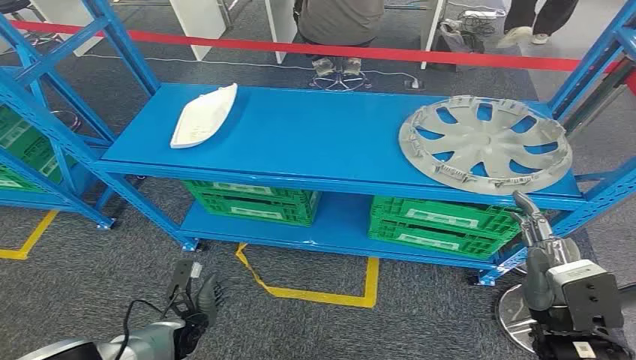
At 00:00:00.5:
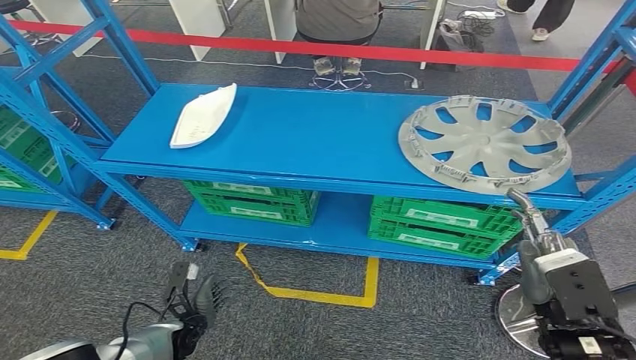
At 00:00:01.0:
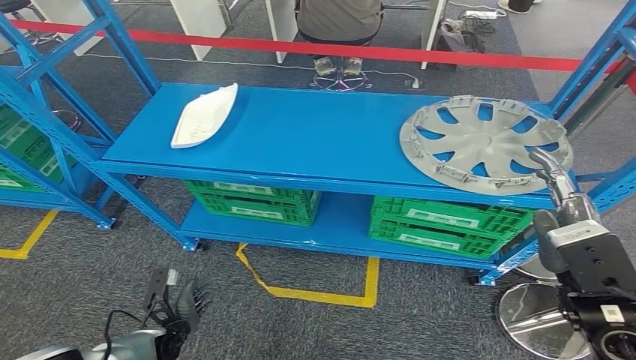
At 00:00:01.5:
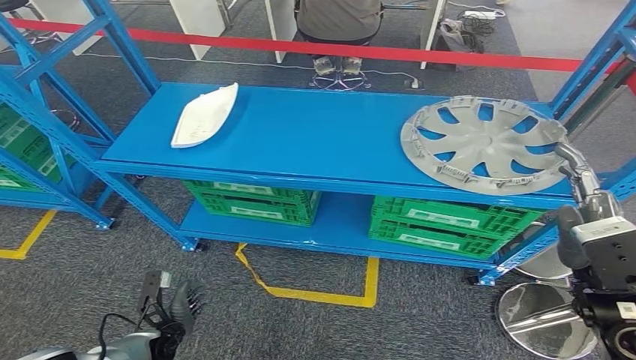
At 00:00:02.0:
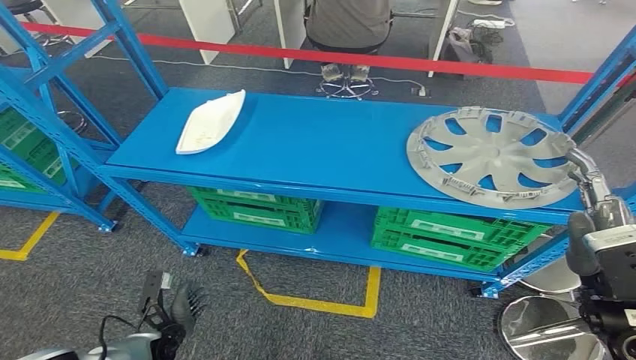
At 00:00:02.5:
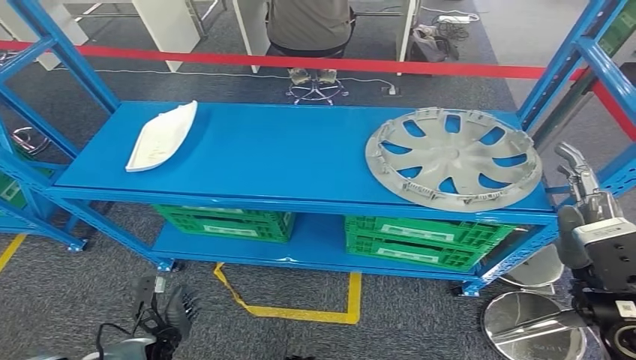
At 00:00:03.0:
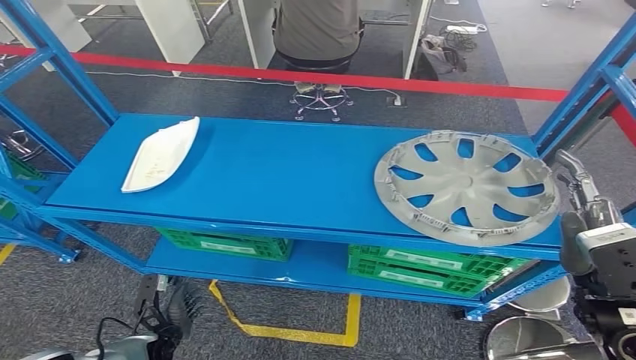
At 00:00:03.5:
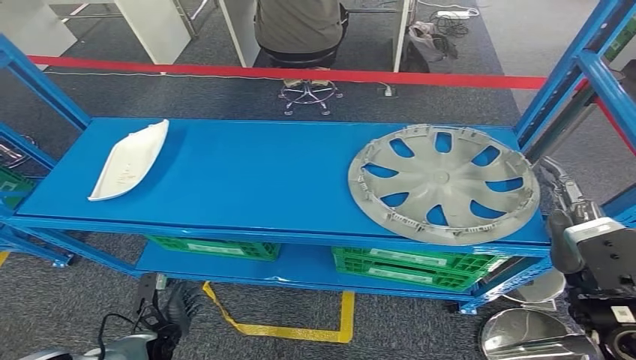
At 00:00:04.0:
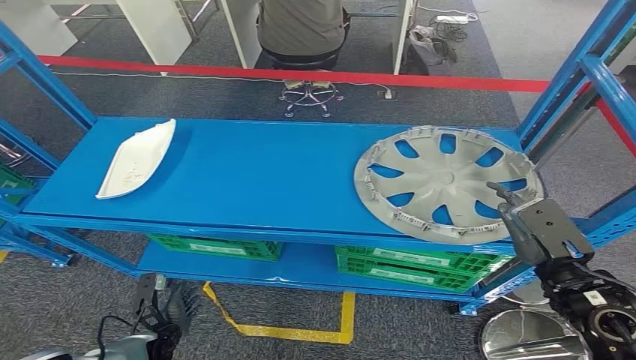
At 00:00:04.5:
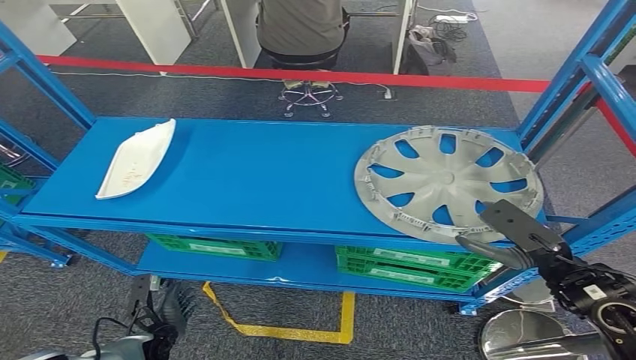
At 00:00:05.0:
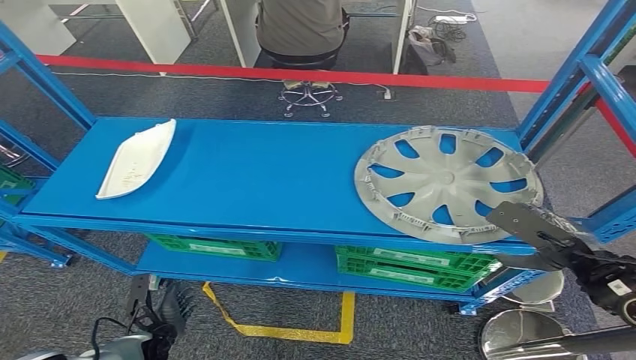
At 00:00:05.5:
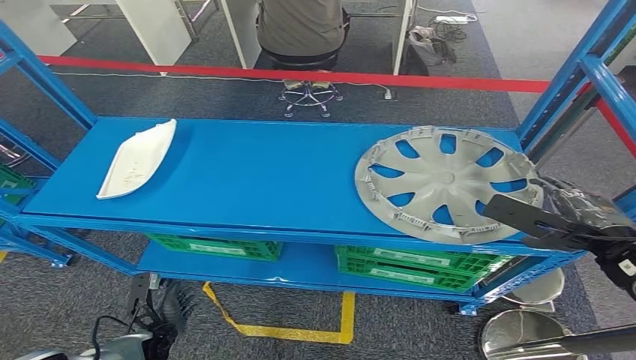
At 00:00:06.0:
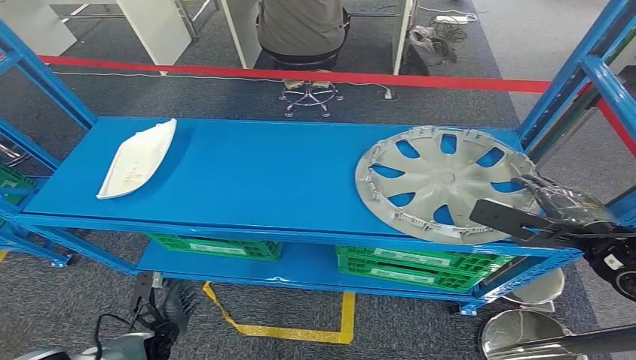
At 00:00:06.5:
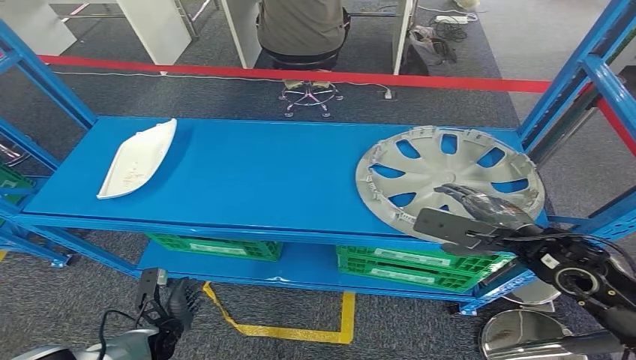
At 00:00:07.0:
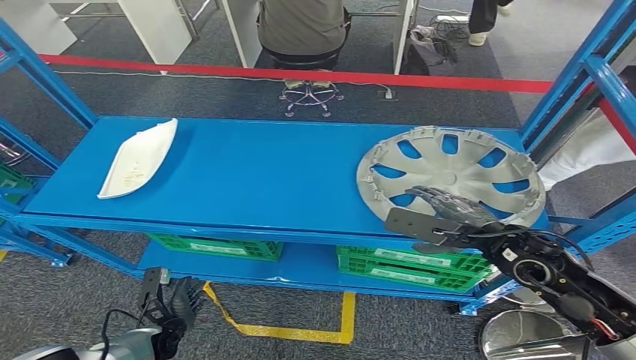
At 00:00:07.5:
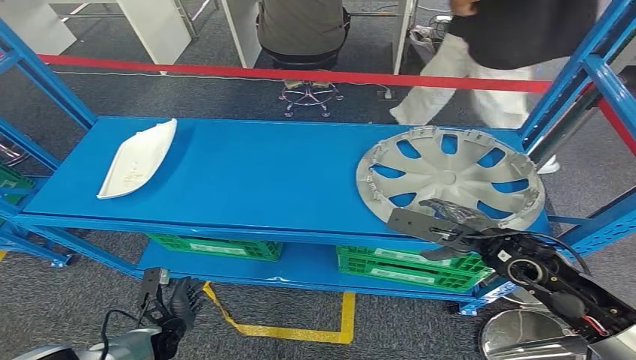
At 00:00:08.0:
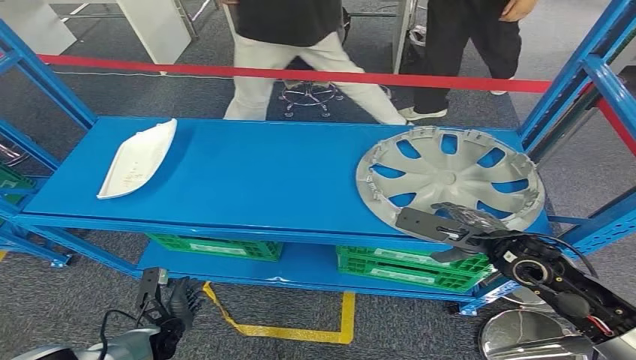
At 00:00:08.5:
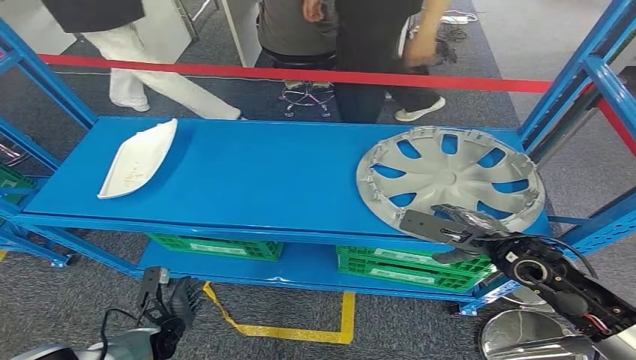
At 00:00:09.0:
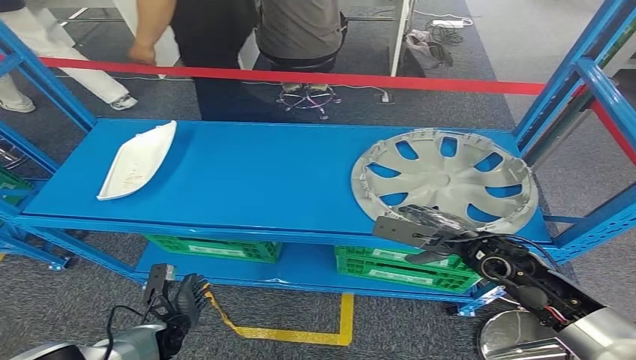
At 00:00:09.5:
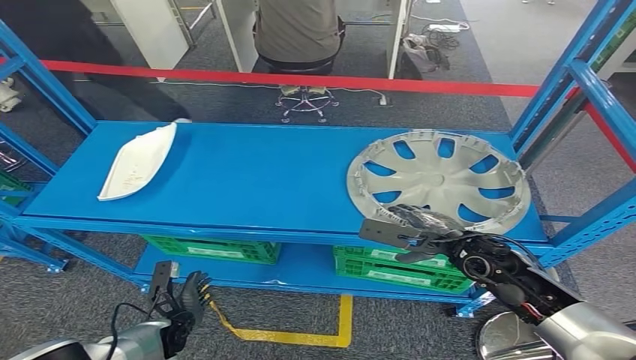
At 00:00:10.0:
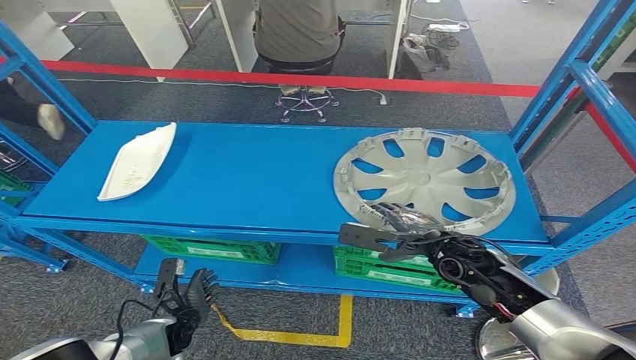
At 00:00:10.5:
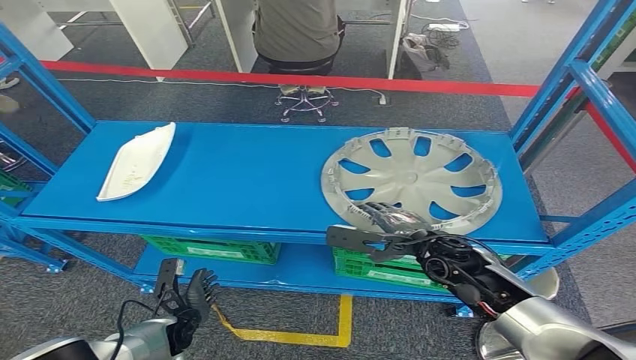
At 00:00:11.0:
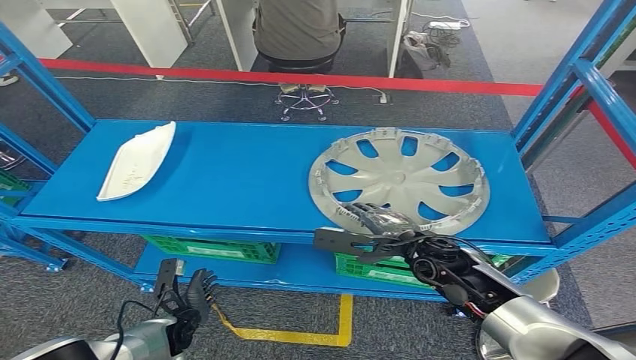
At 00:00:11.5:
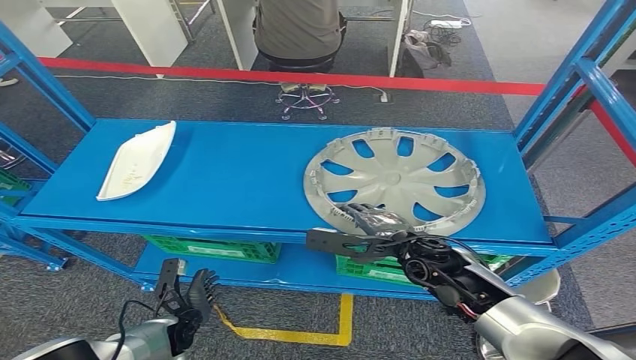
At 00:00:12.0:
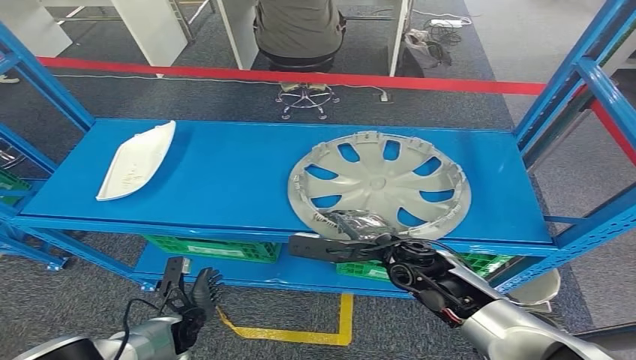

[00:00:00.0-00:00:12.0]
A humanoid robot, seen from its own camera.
00:00:04.0 to 00:00:06.0: The right hand heads forward, covering approximately 5 cm.
00:00:06.0 to 00:00:08.0: The right hand is displaced to the left and downward by some 10 cm.

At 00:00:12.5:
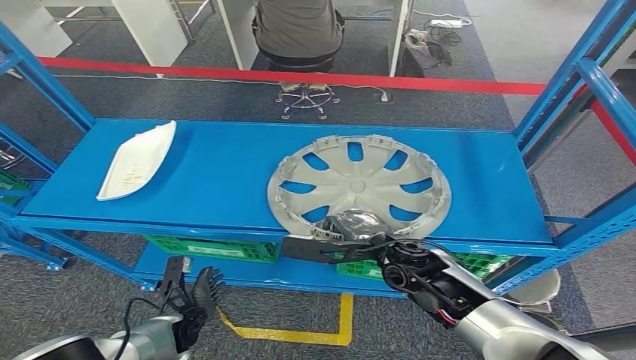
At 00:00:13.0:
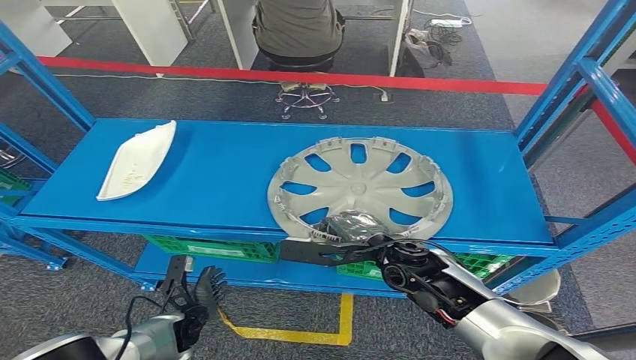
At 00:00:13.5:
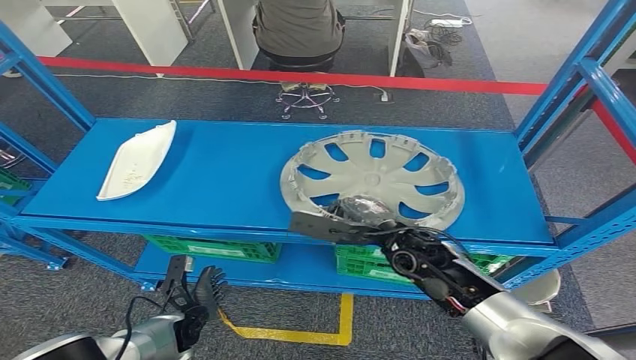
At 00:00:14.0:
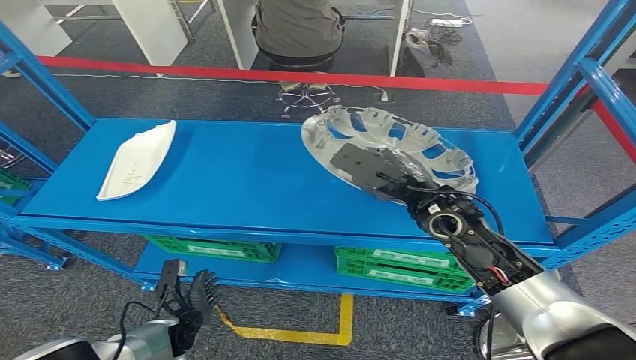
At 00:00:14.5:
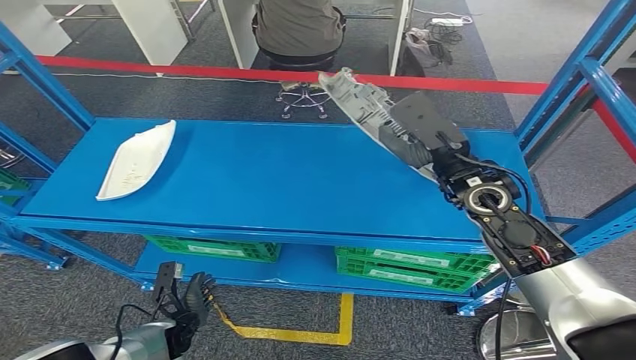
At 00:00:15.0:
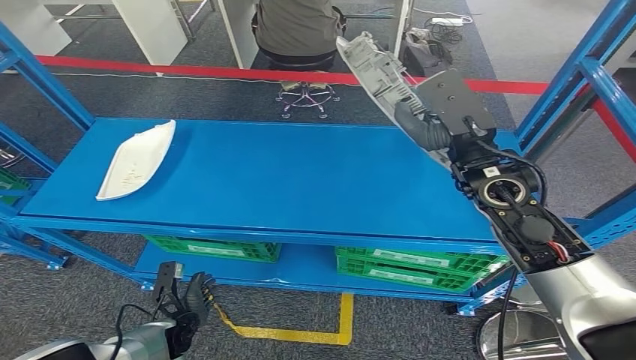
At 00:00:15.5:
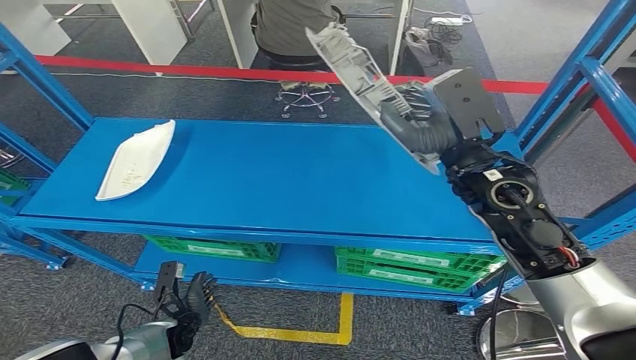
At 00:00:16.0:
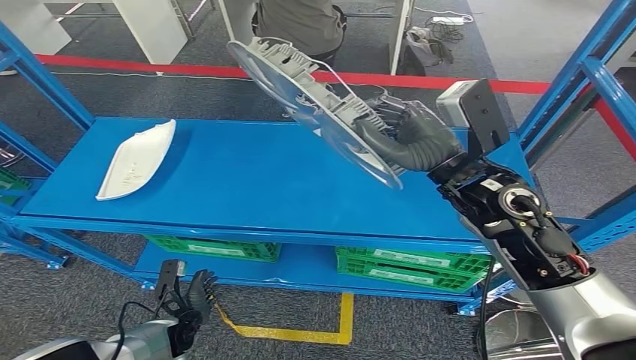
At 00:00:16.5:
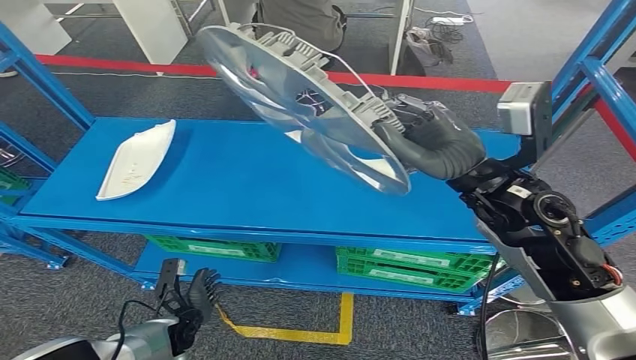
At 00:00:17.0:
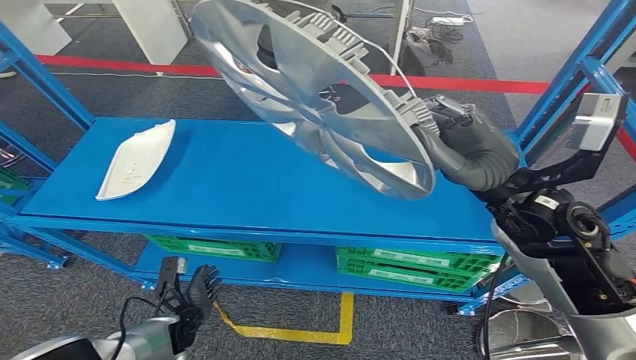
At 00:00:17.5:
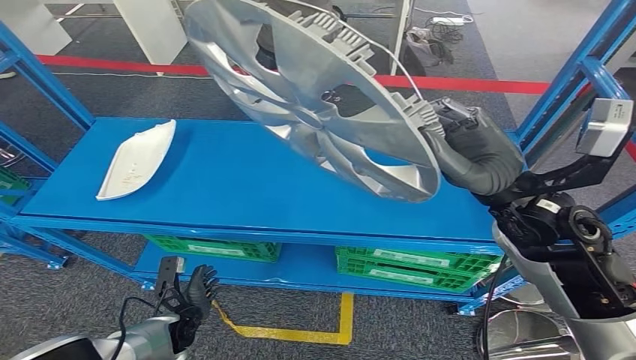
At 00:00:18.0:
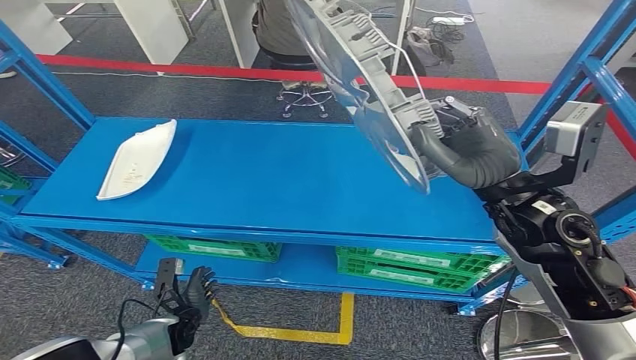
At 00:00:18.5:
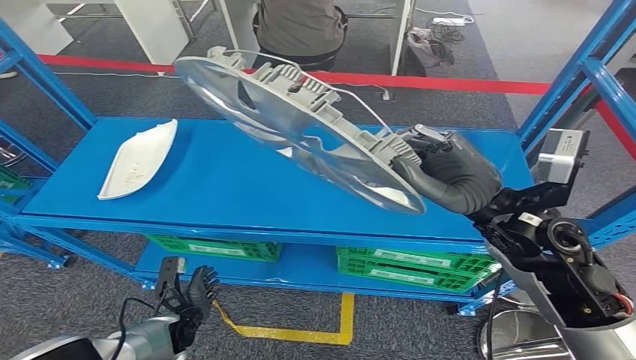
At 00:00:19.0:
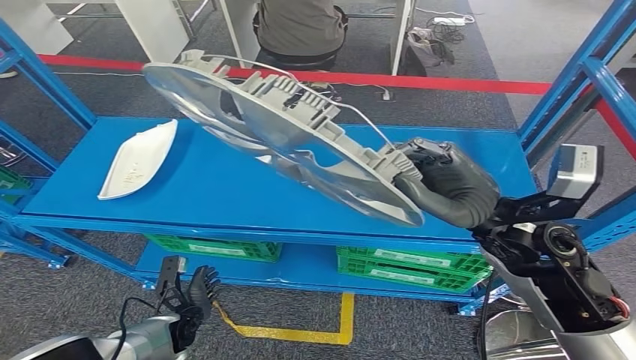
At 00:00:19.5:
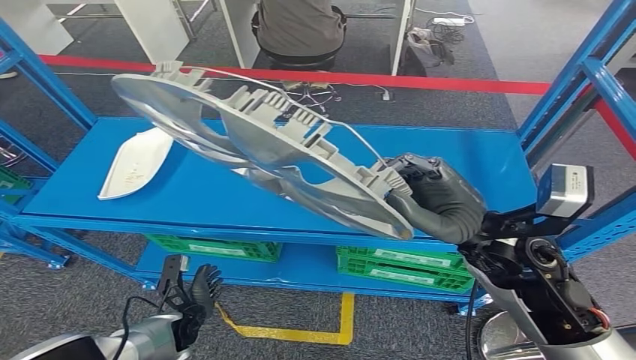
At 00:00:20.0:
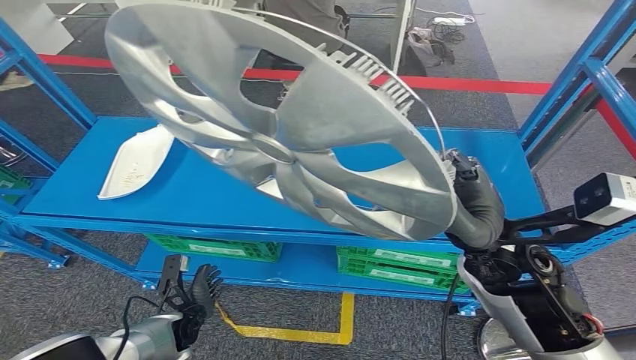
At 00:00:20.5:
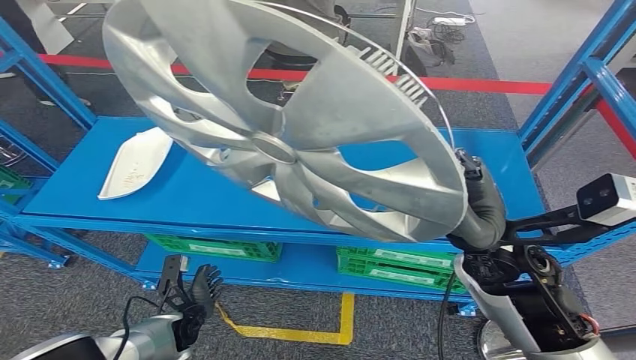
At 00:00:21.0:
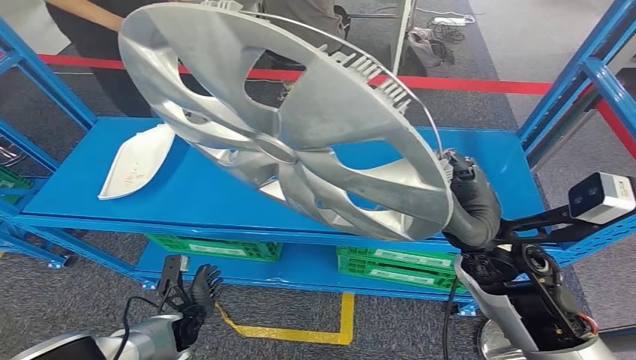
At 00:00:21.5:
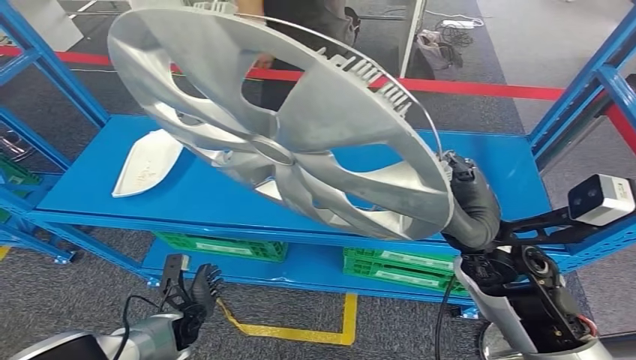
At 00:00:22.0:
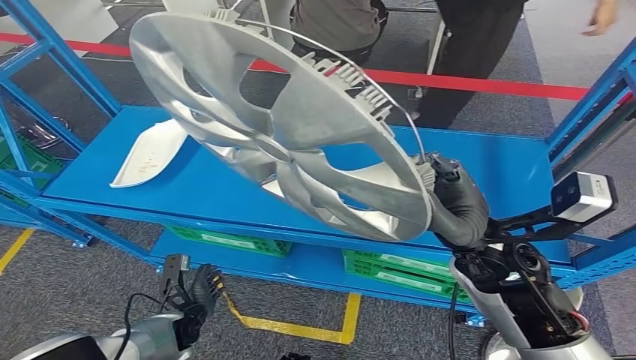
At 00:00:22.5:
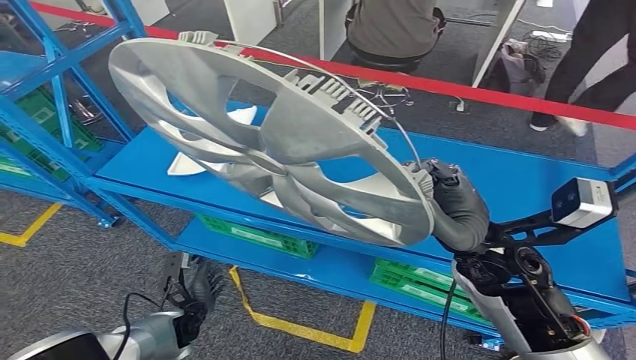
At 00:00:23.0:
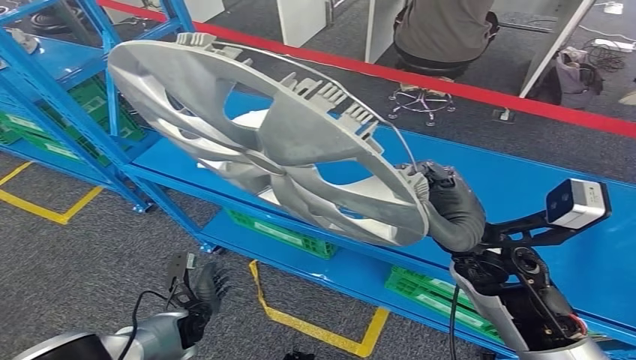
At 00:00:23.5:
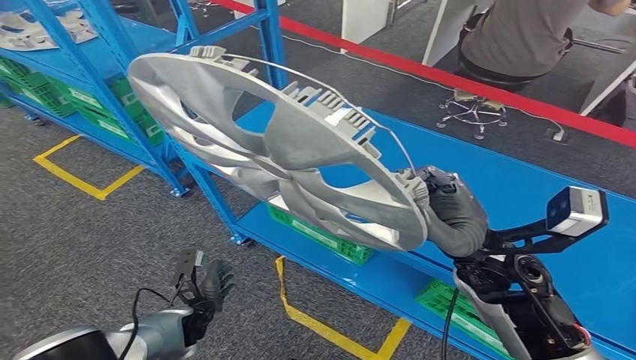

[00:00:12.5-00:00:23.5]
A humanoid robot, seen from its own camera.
Step, 00:00:12.5 to 00:00:15.0: Pick up the small component from the shelf.
00:00:16.0 to 00:00:18.0: The right hand moves about 5 cm.
